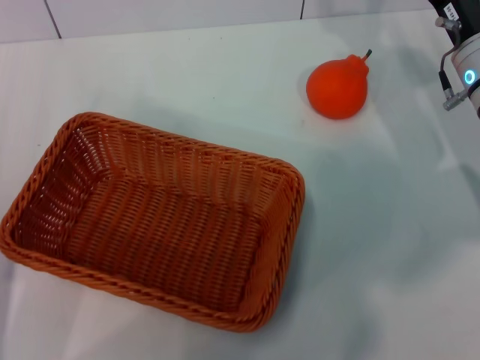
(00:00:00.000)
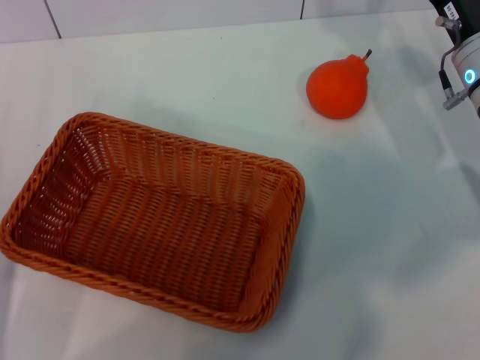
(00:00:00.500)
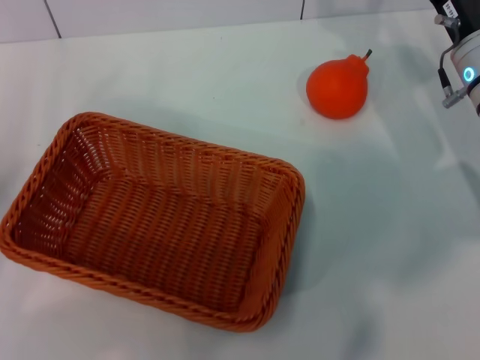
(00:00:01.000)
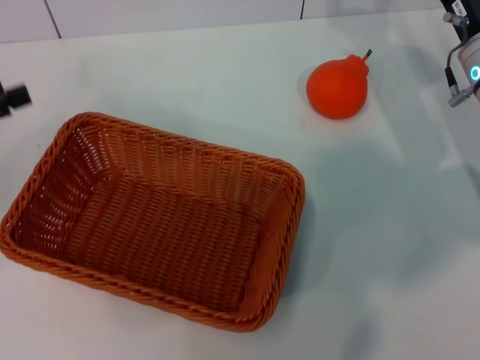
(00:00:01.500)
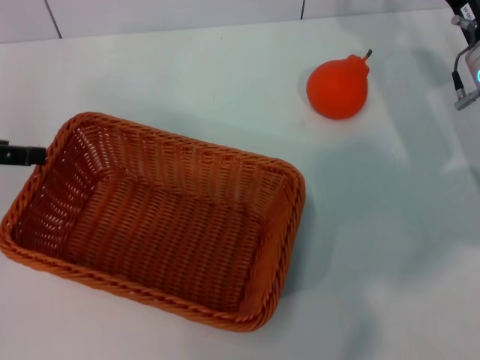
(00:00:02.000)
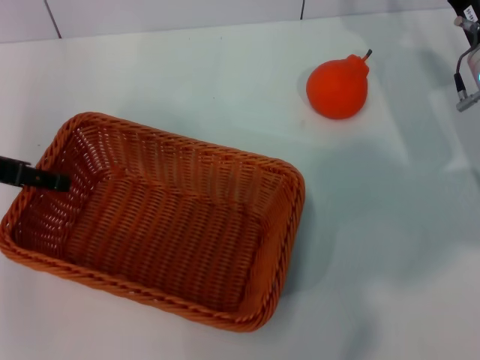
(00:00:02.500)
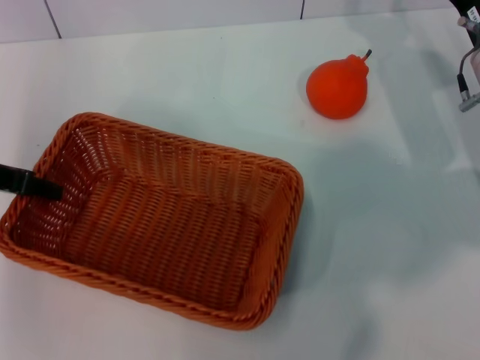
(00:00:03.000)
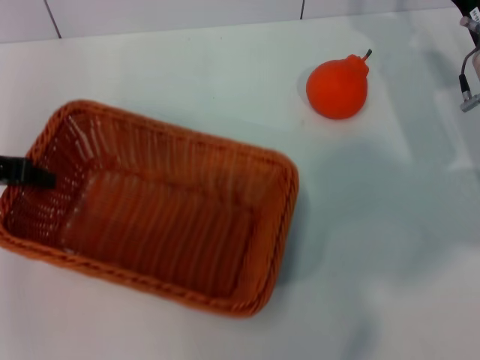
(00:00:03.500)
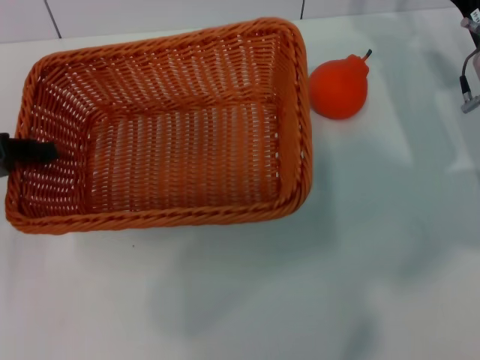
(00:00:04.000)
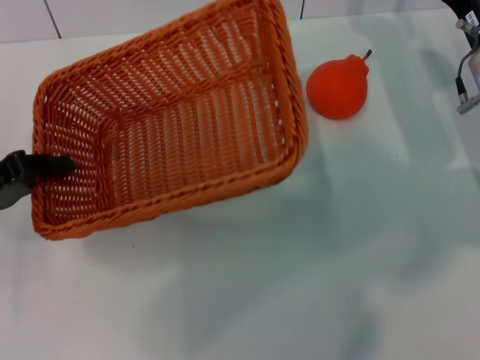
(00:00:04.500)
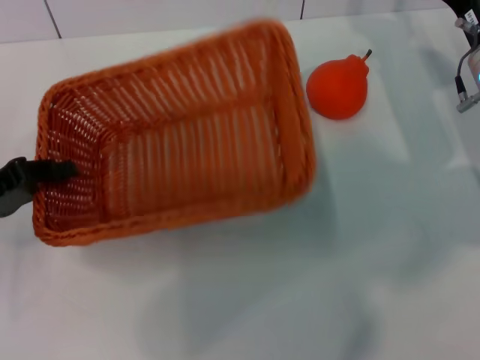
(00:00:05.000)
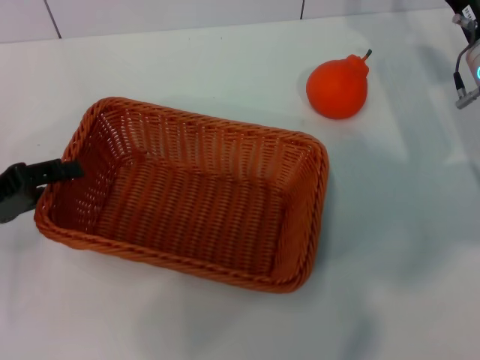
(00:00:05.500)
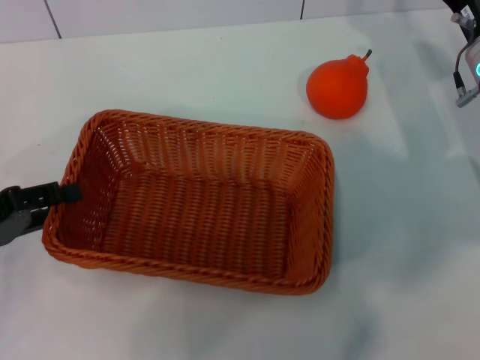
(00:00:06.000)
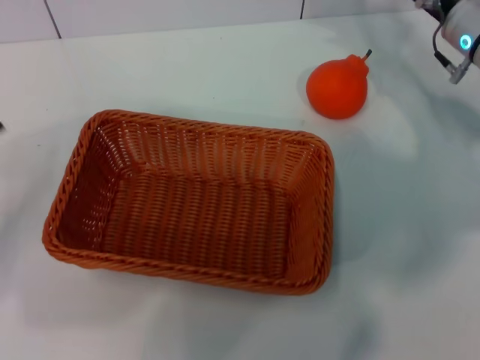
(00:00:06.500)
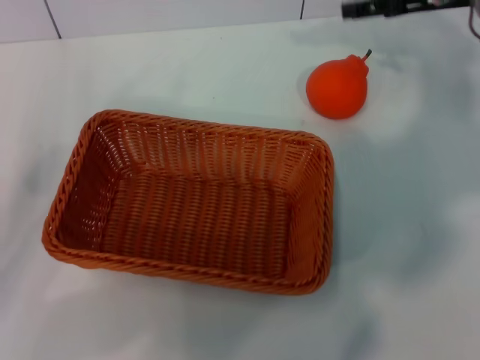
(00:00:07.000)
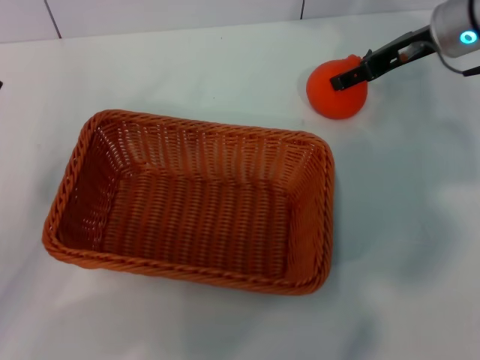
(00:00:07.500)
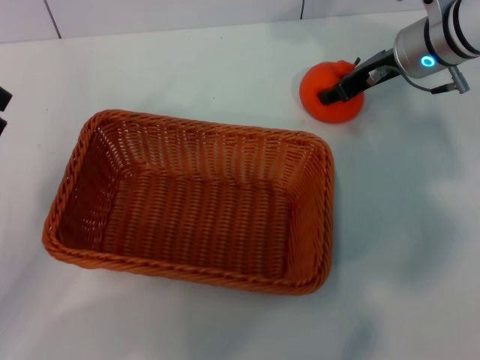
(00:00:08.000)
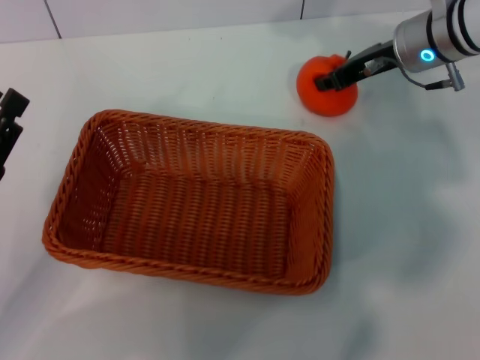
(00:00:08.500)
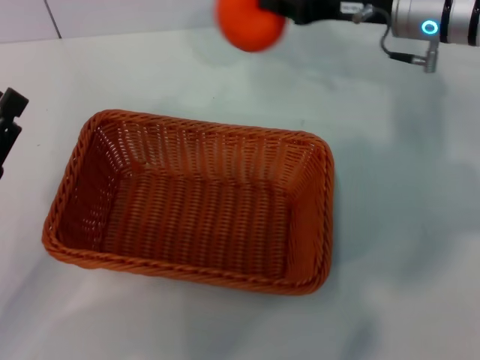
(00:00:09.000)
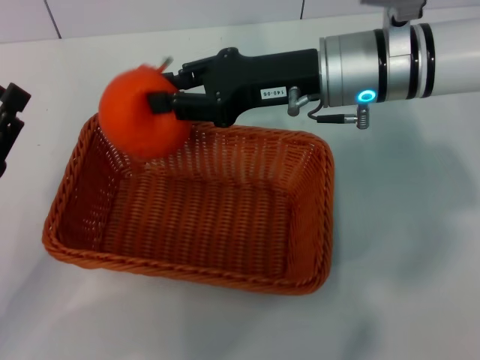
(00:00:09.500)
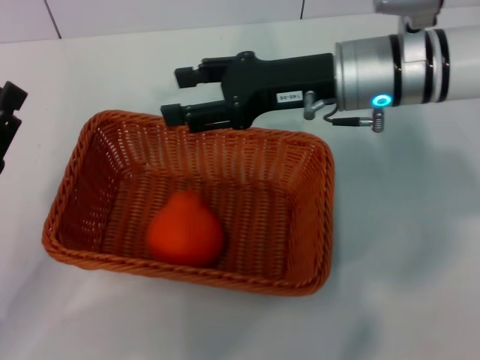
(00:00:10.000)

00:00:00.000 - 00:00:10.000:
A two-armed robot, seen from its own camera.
Task of the whole recording: the left gripper pick up the yellow basket and place it horizontally in the middle of the table, the right gripper pick up the orange and place it into the yellow basket.
Step, 00:00:00.000 - 00:00:03.500: Pick up the light basket with the left gripper.
Step, 00:00:04.000 - 00:00:06.000: Place the light basket in the center of view with the left gripper.
Step, 00:00:06.500 - 00:00:08.500: Pick up the orange with the right gripper.
Step, 00:00:09.000 - 00:00:09.500: Place the orange into the light basket with the right gripper.
00:00:00.000 - 00:00:02.000: The left gripper moves upward and forward, approximately 20 cm, and opens its fingers.
00:00:02.000 - 00:00:04.000: The left gripper closes its fingers.
00:00:04.000 - 00:00:06.000: The left gripper moves downward, roughly 5 cm, and opens its fingers.
00:00:06.000 - 00:00:08.000: The right gripper is displaced to the left and upward by about 10 cm; the left gripper moves some 5 cm.
00:00:08.000 - 00:00:10.000: The right gripper is displaced to the left and backward by approximately 10 cm, and closes, then opens again.

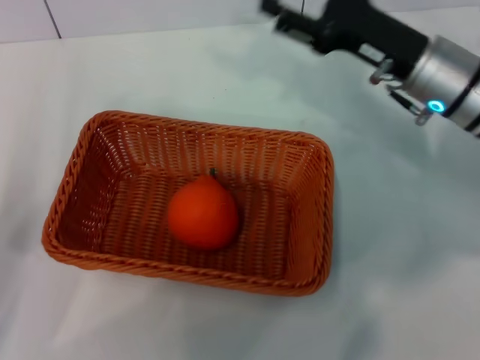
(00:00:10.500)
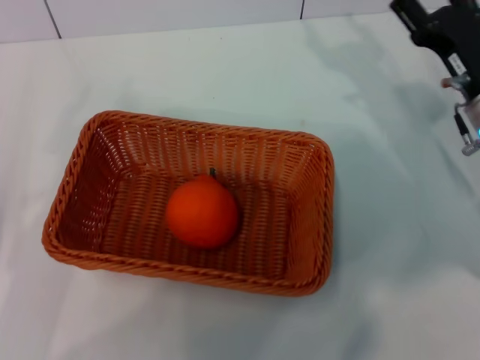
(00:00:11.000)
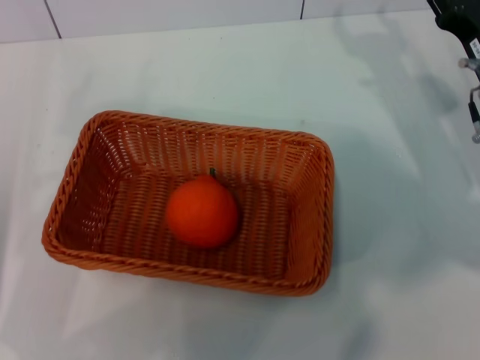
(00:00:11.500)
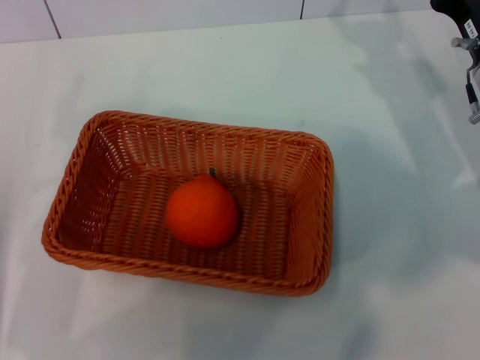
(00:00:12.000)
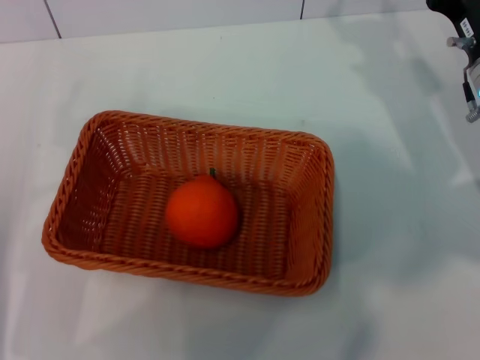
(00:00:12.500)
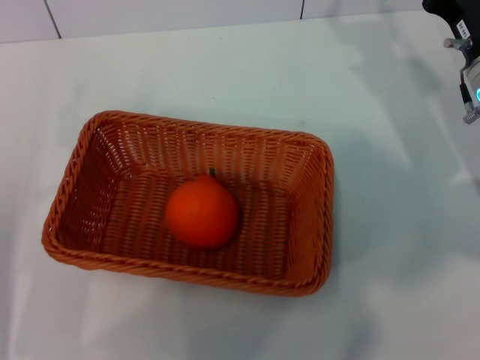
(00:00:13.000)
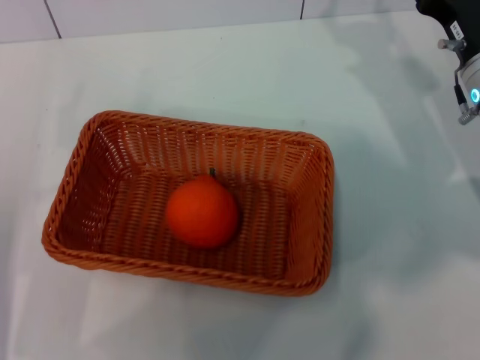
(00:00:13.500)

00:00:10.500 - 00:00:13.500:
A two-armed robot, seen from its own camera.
Task of the whole recording: the left gripper pick up the yellow basket and place it horizontally in the middle of the table, the right gripper pick up the orange and place it into the yellow basket.
00:00:10.500 - 00:00:12.000: The left gripper opens. The right gripper goes some 5 cm to the right.
00:00:12.000 - 00:00:13.500: The grippers move only a little.
